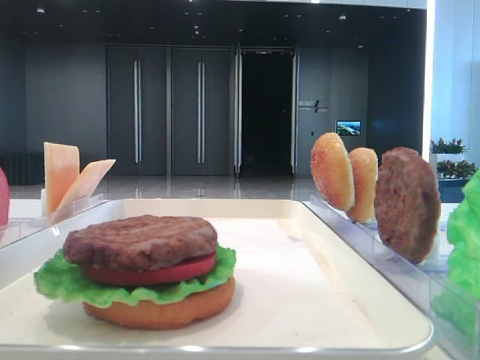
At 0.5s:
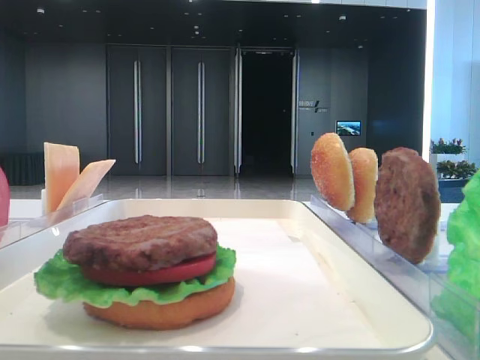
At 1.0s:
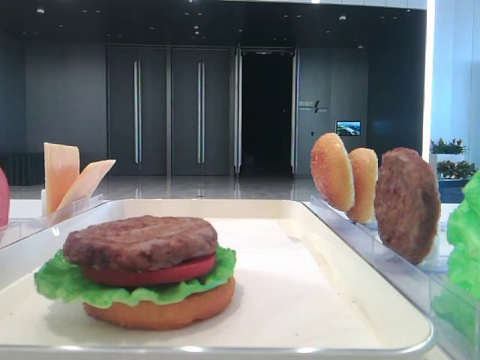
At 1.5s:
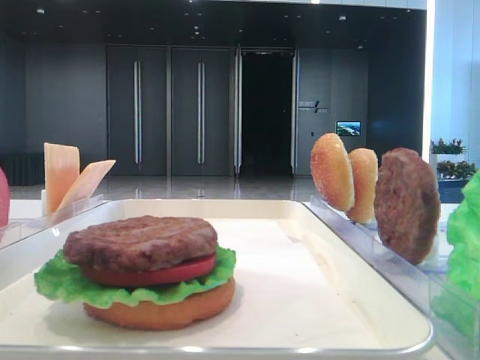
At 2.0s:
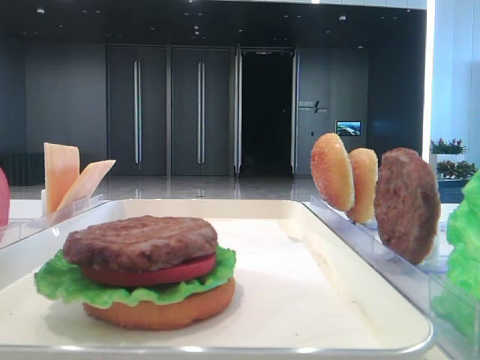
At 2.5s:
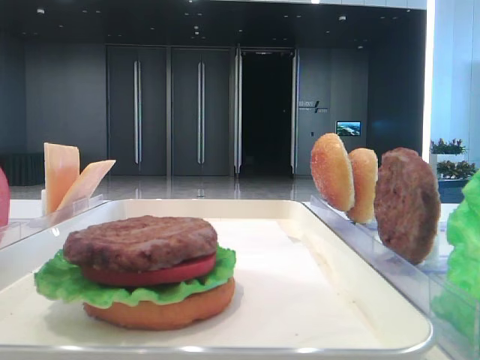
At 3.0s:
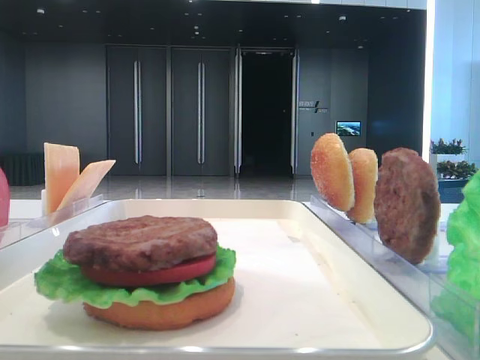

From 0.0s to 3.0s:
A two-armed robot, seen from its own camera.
From 1.5s to 3.0s: The two grippers keep their place.

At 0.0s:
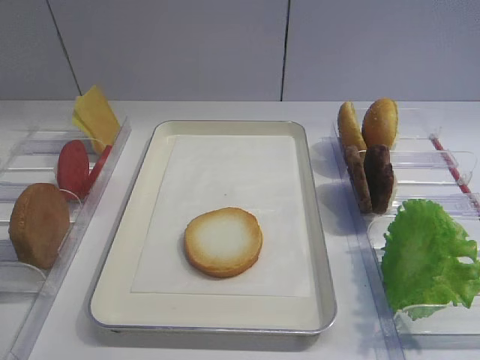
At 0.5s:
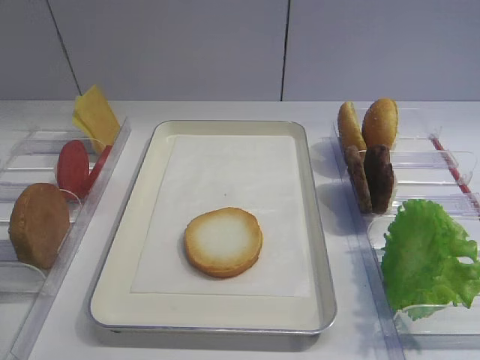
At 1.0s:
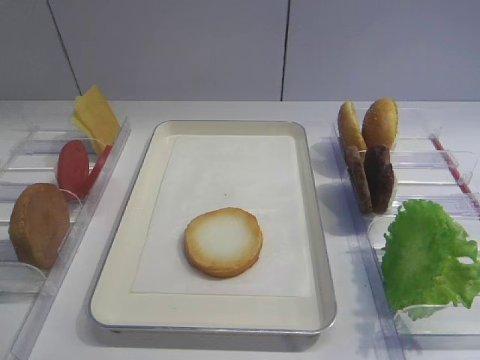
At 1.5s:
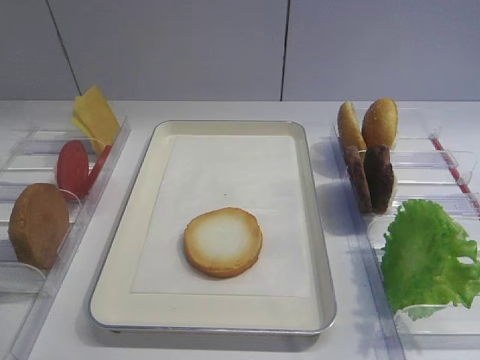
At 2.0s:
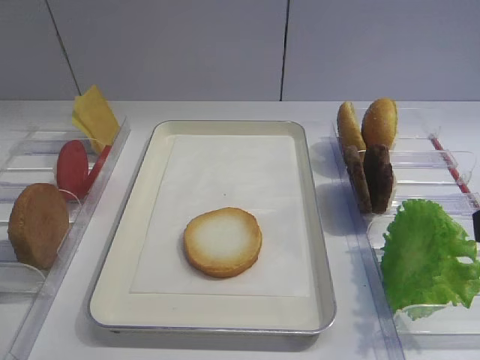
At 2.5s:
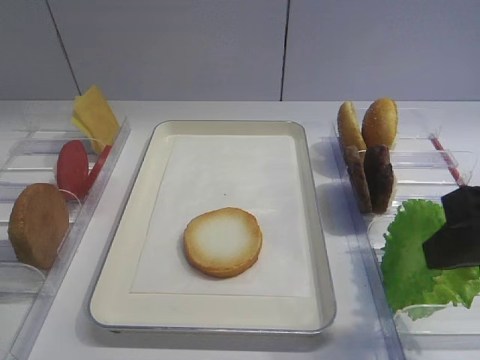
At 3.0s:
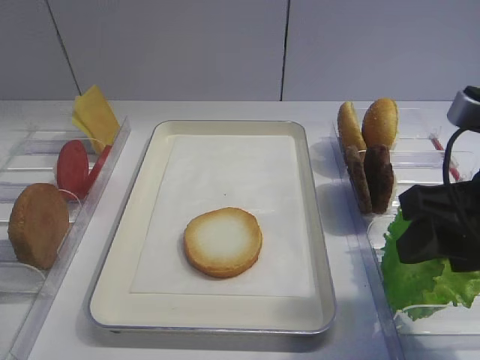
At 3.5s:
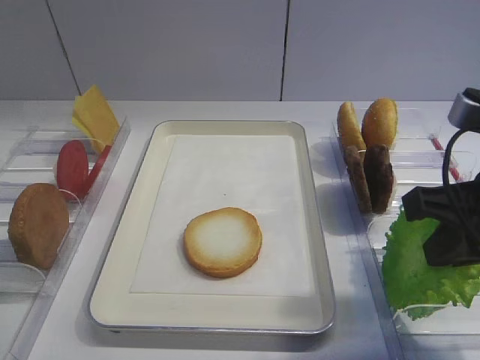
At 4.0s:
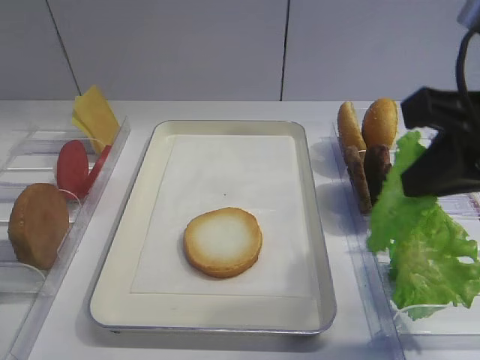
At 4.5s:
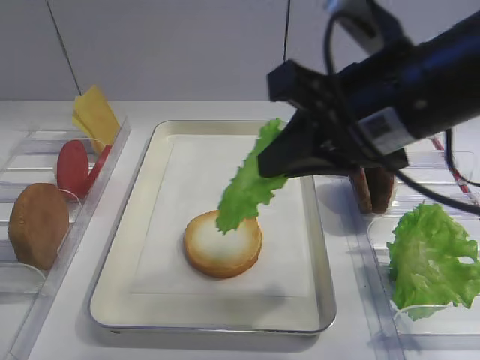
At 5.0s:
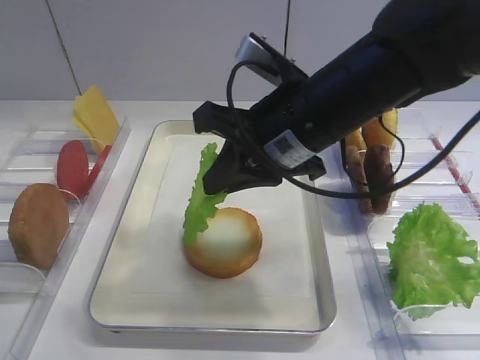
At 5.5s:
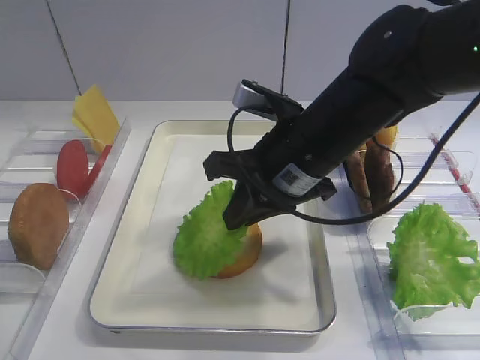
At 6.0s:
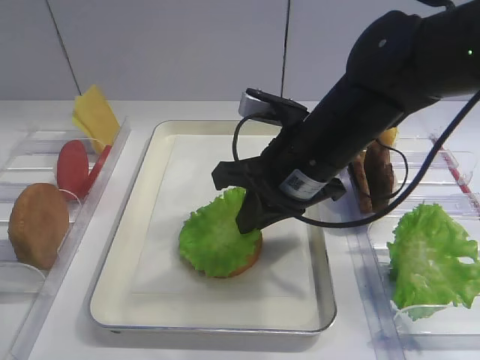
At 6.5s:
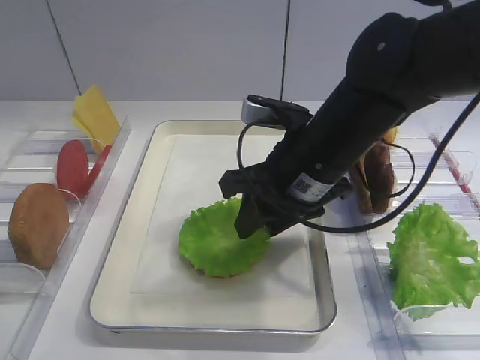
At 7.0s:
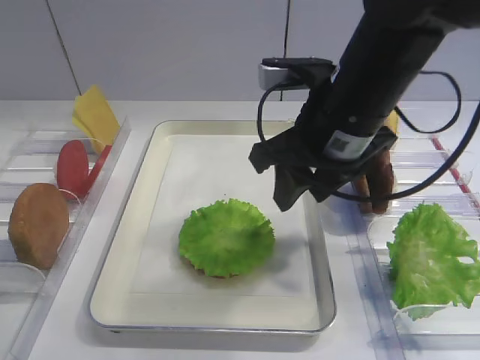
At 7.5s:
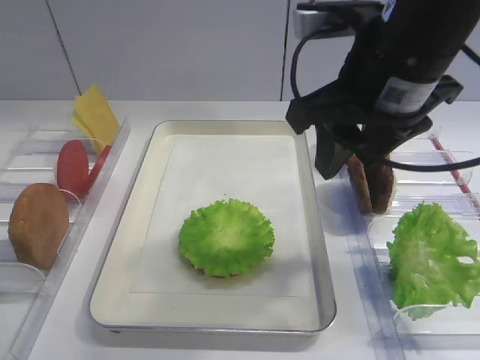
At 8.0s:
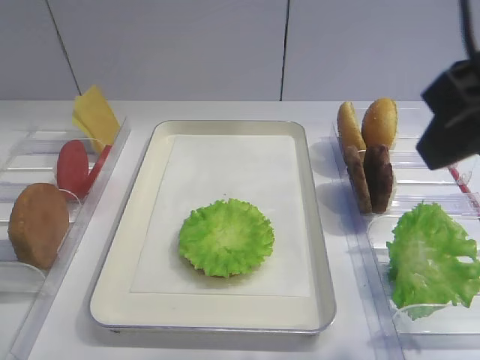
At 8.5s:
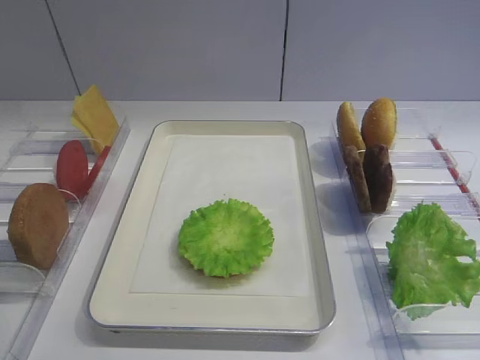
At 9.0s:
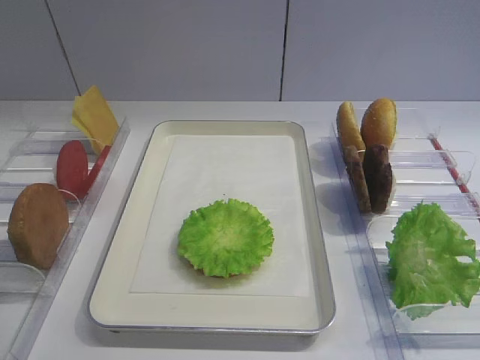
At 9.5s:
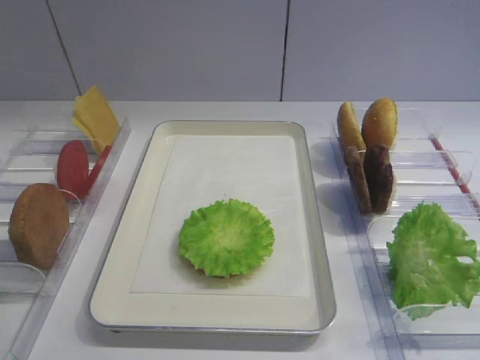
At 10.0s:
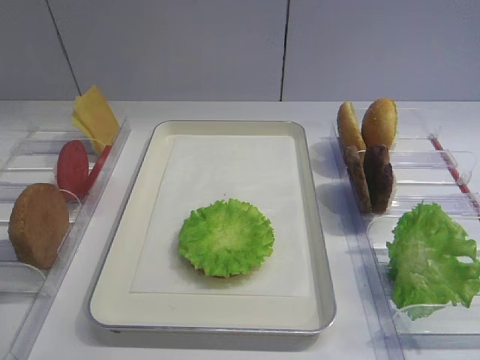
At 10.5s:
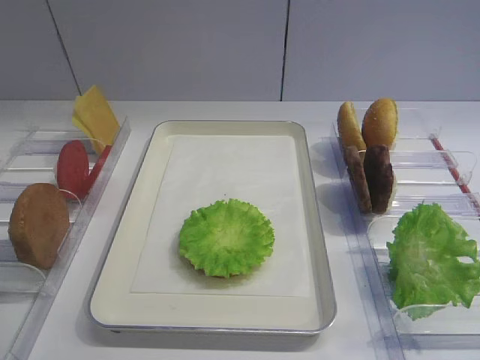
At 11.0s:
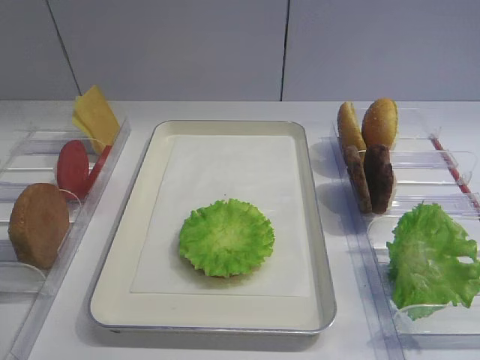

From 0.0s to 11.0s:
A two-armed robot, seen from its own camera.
Step, from 0.0s to 3.5s: Pick up the lettuce leaf with the right gripper.
Step, from 4.0s to 7.0s: Place the lettuce leaf on the bread slice with the right gripper.
From 2.0s to 3.5s: The right gripper travels forward and downward by roughly 10 cm, and closes its fingers.
From 3.5s to 5.5s: The right gripper goes approximately 15 cm to the left and forward.
From 5.5s to 7.5s: The right gripper shifts some 10 cm upward and to the right, and opens.
From 7.5s to 9.0s: The right gripper is displaced backward and to the right by roughly 30 cm.

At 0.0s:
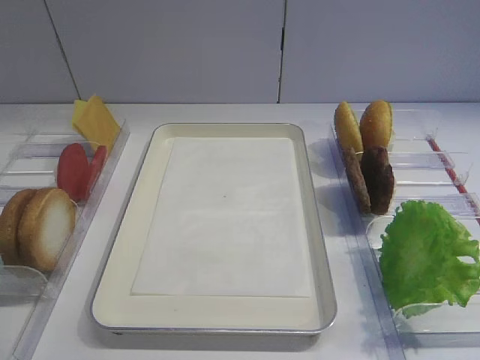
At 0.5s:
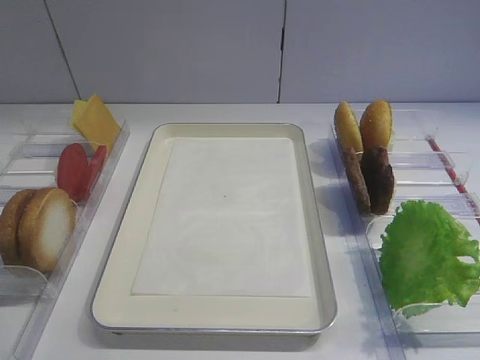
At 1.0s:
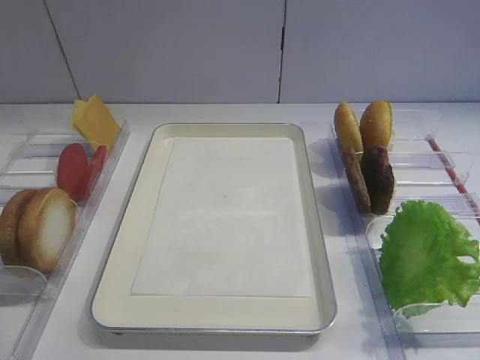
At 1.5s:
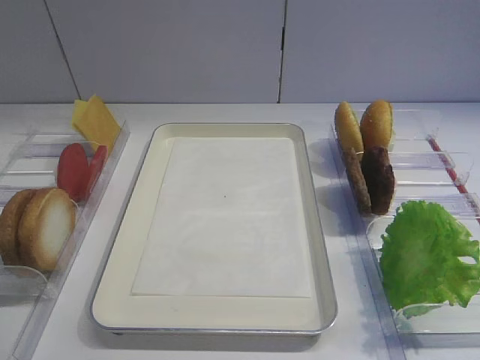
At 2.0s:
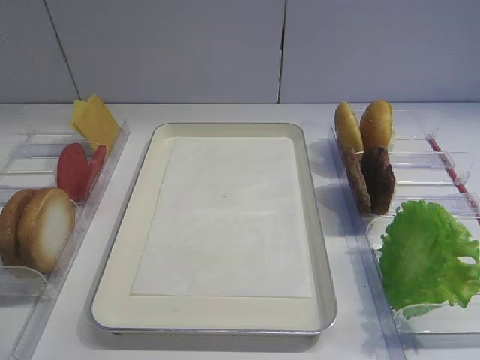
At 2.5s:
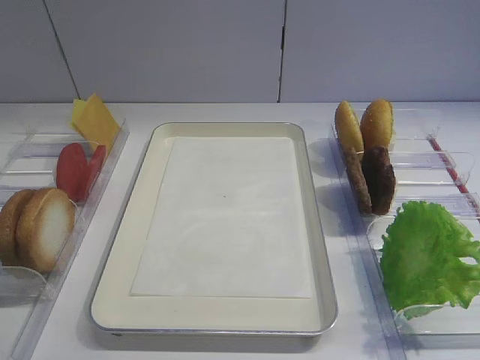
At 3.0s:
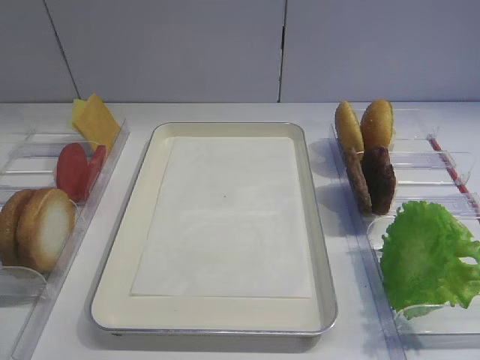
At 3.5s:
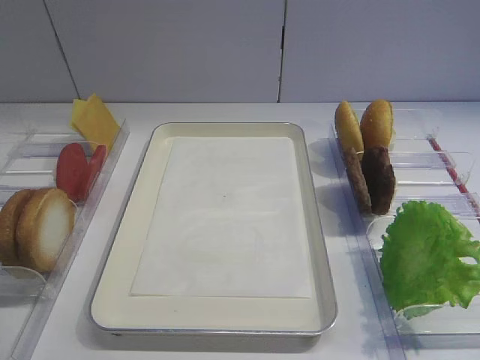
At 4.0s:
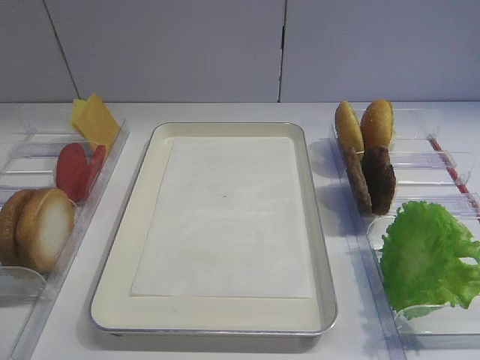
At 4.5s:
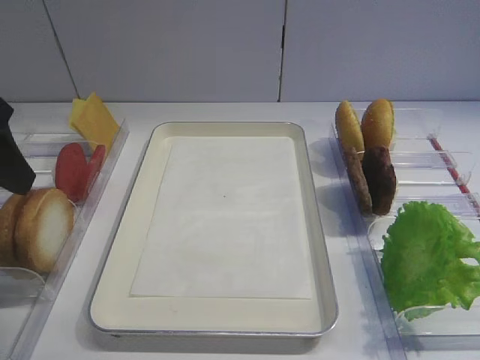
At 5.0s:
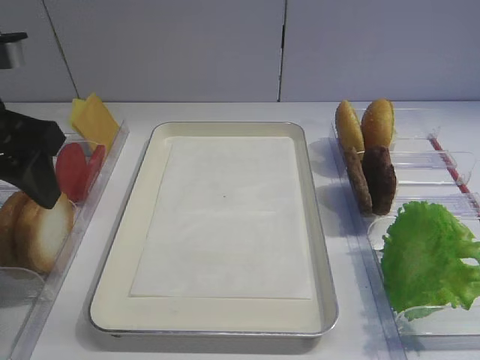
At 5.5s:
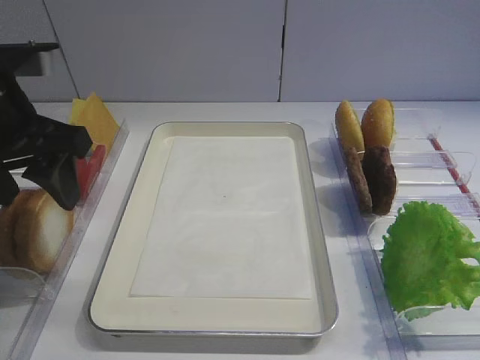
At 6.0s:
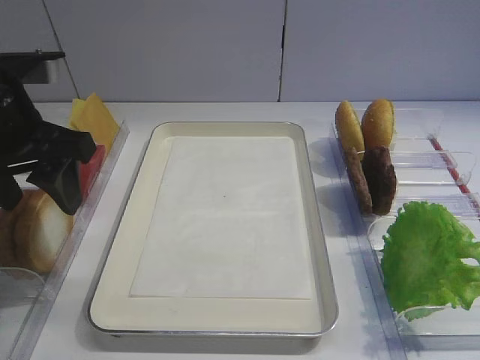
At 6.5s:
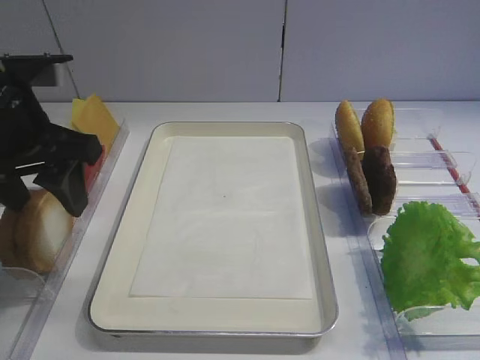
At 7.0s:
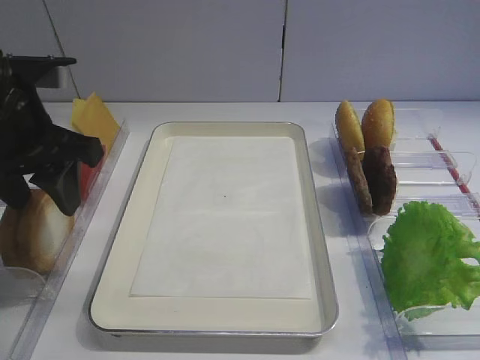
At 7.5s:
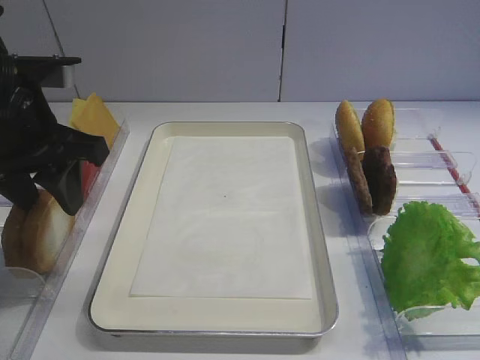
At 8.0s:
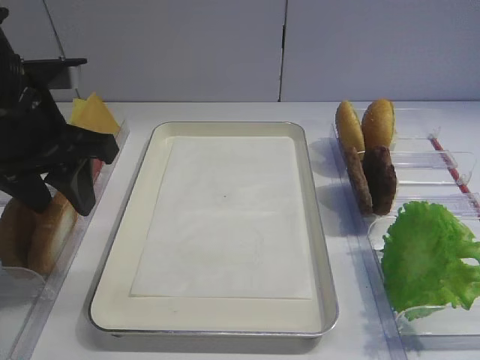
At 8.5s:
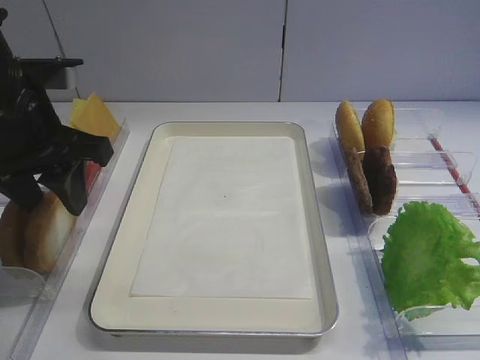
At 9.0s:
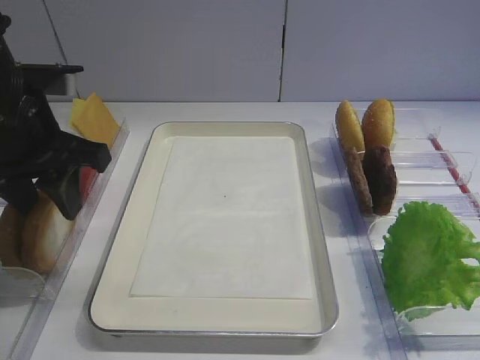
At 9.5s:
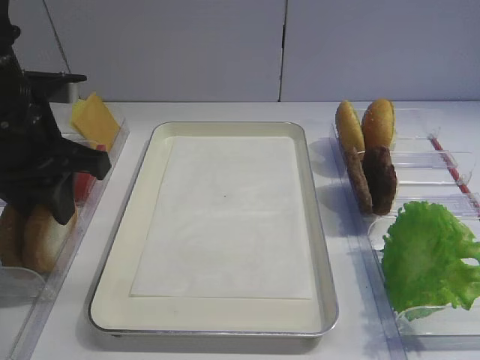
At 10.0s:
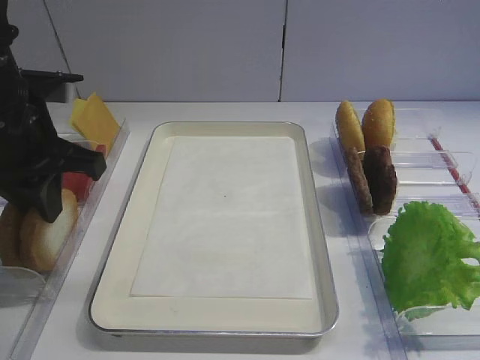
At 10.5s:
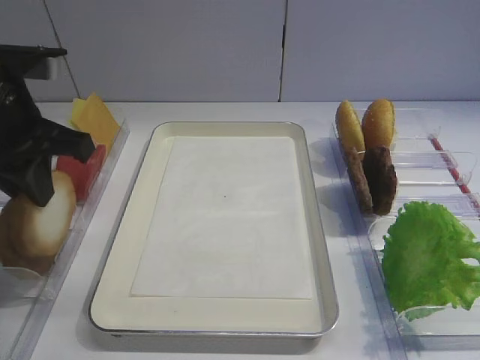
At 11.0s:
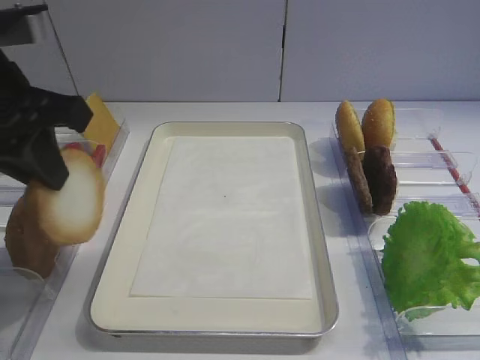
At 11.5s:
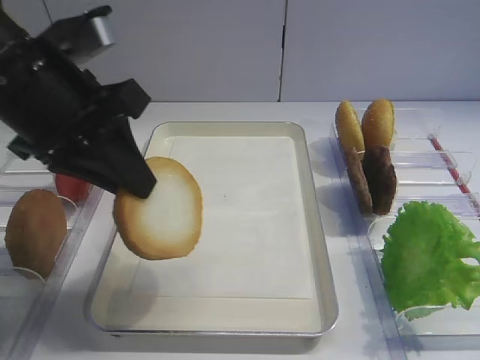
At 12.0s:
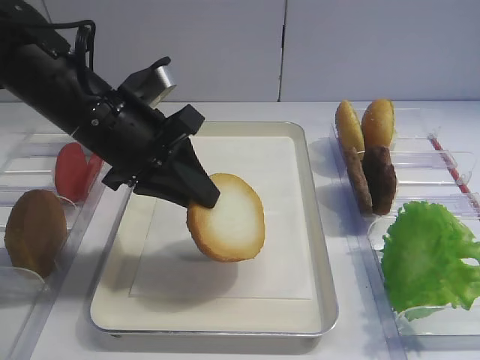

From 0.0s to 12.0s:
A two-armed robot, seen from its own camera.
Step, from 0.0s to 10.5s: Pick up the bread slice with the left gripper.
From 2.0s to 4.0s: The right gripper opens its fingers.
From 4.0s to 6.0s: The left gripper moves forward, approximately 10 cm.
From 6.0s to 8.0s: The grippers stay close to where they were, moving slightly.
From 8.0s to 10.0s: The left gripper closes.
From 10.0s to 12.0s: The left gripper is displaced to the right by approximately 10 cm.
